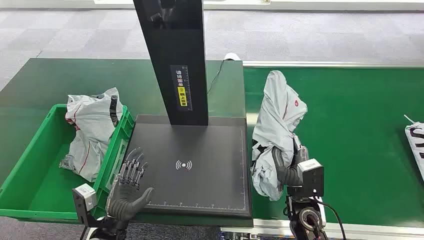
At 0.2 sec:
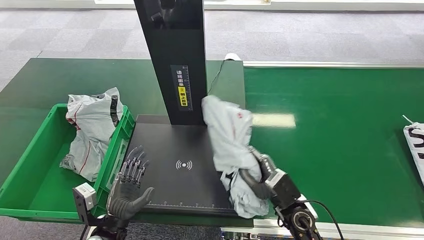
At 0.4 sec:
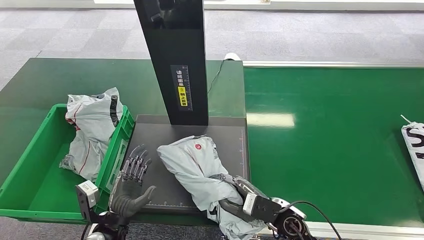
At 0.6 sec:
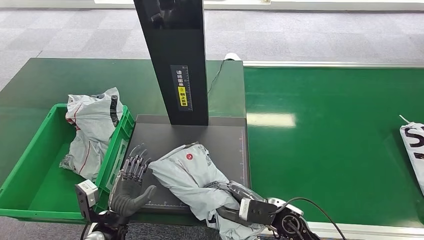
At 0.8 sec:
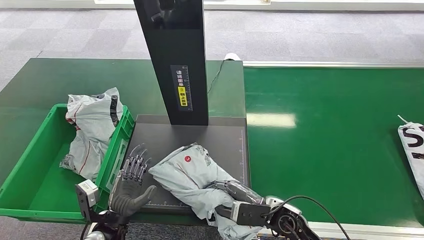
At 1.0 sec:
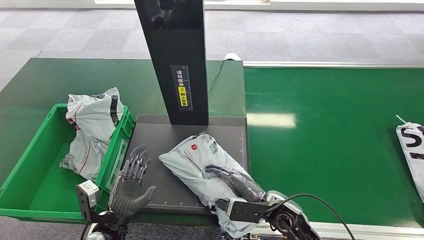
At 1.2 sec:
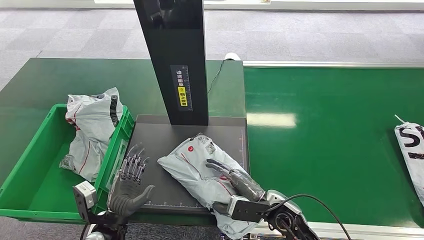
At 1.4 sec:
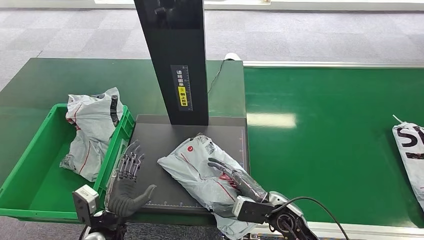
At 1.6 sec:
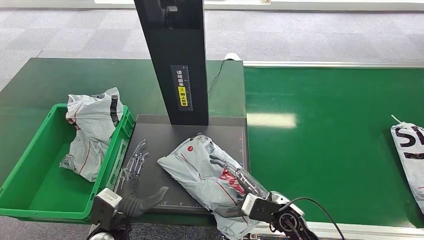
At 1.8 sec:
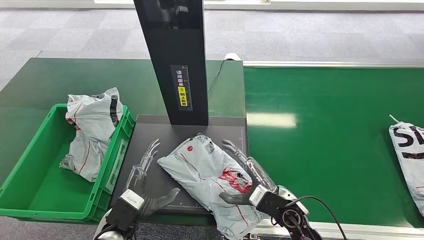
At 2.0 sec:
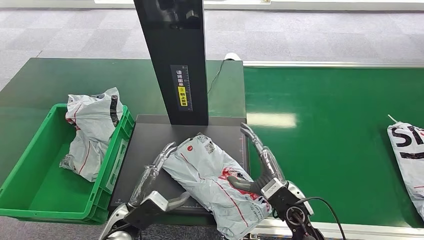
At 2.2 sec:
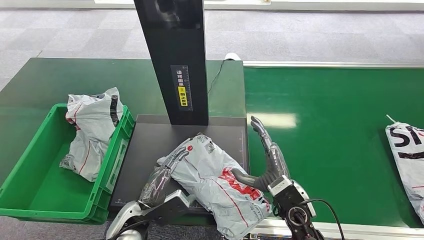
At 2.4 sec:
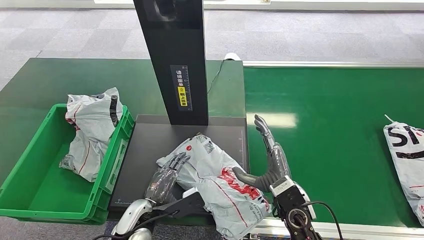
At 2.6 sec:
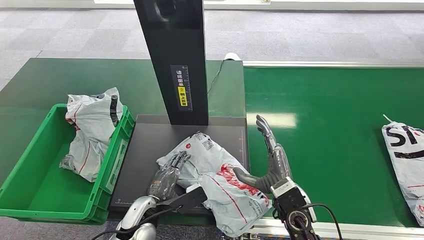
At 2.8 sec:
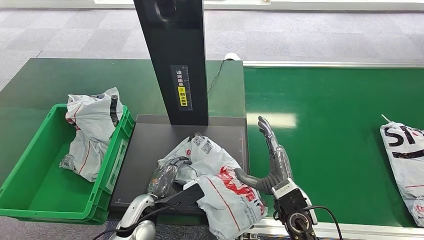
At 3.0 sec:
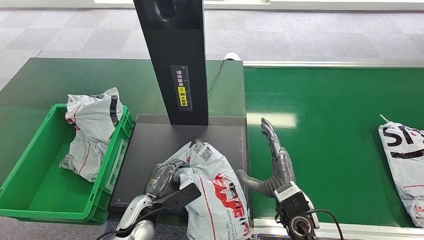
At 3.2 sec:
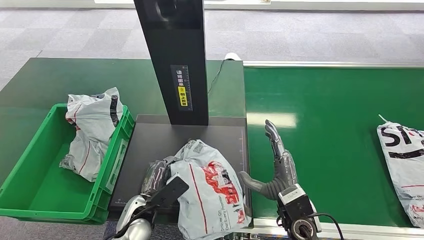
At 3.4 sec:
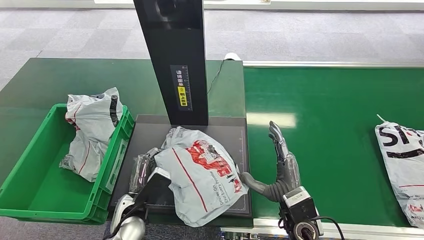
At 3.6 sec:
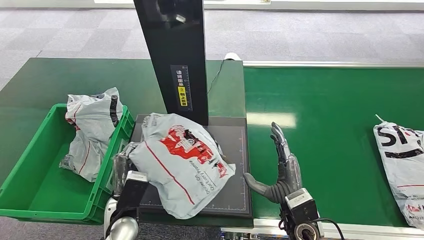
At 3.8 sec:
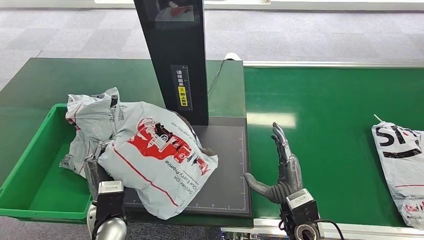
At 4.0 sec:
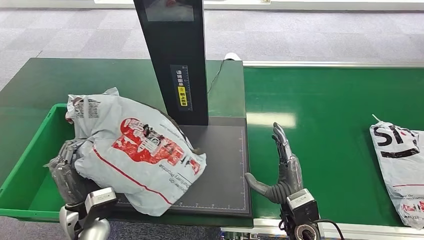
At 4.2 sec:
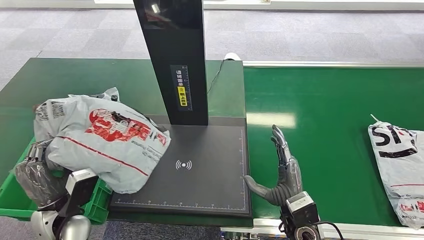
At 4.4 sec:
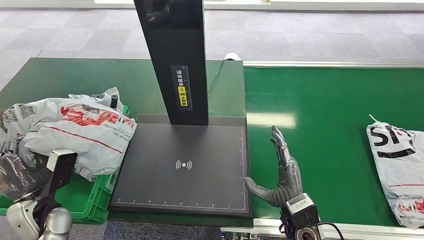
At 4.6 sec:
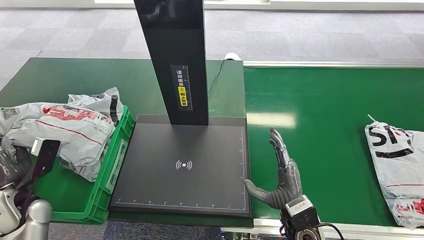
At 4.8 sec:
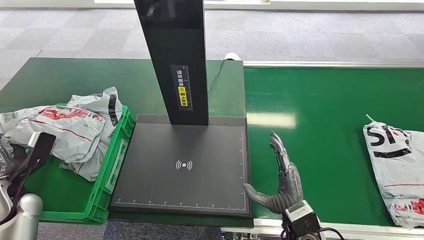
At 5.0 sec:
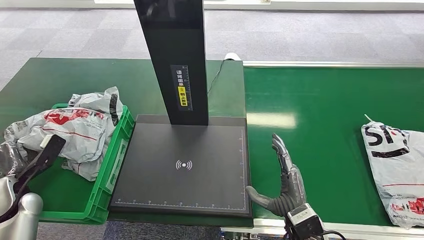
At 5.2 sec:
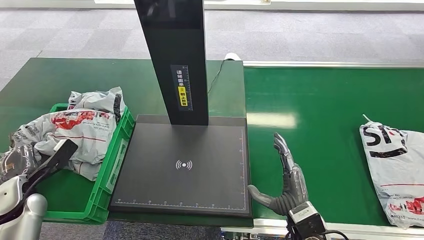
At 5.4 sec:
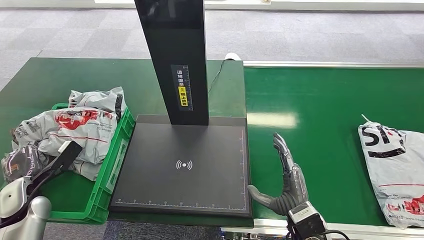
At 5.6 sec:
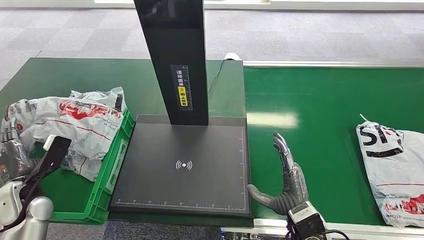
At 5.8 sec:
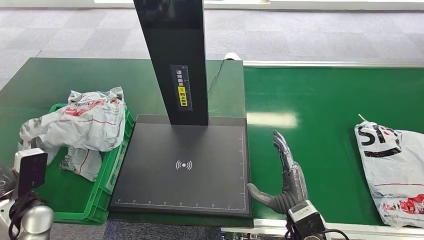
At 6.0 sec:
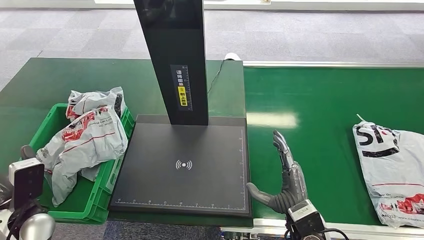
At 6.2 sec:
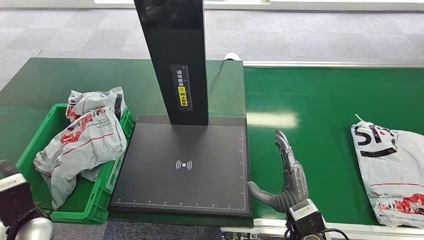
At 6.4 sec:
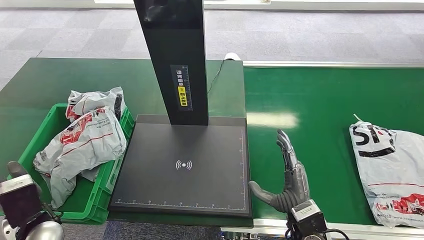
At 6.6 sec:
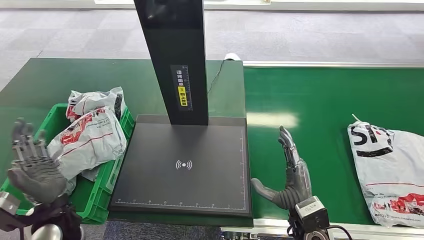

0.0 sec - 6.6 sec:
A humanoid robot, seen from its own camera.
1.6 sec - 3.2 sec: The left hand ends up roughly 5 cm from where it was.
5.0 sec - 6.6 sec: The left hand travels to the right by roughly 15 cm.
